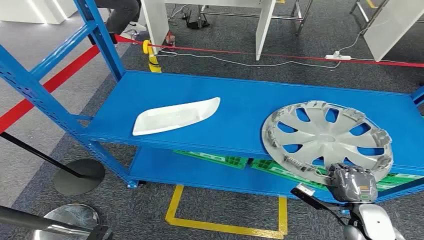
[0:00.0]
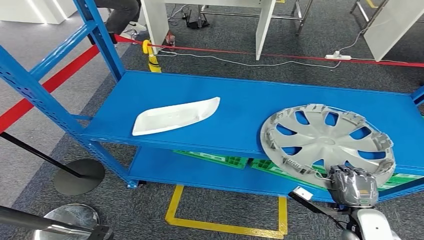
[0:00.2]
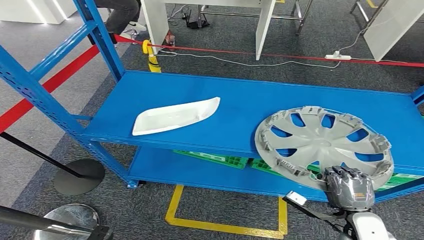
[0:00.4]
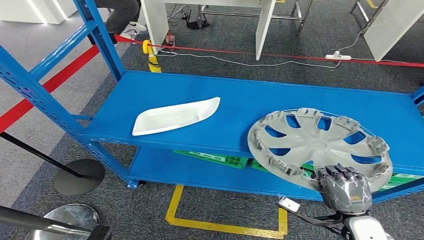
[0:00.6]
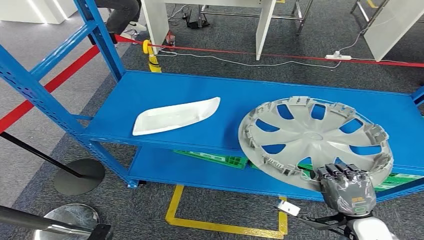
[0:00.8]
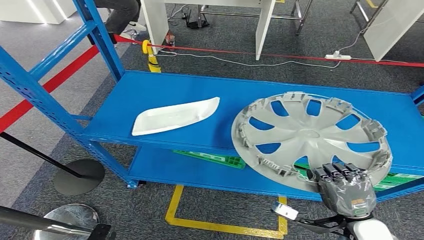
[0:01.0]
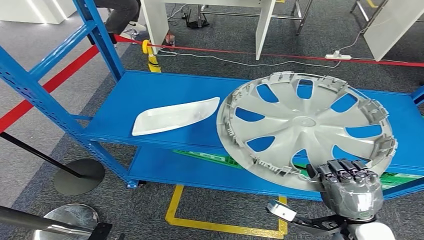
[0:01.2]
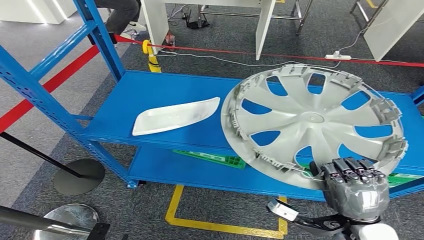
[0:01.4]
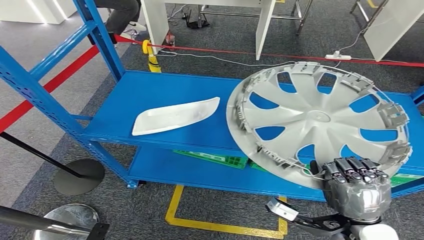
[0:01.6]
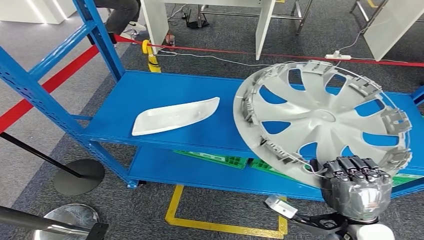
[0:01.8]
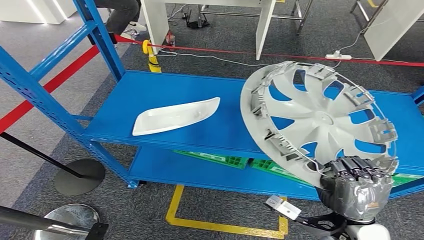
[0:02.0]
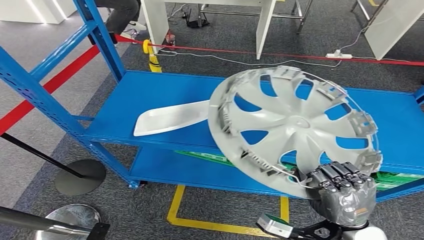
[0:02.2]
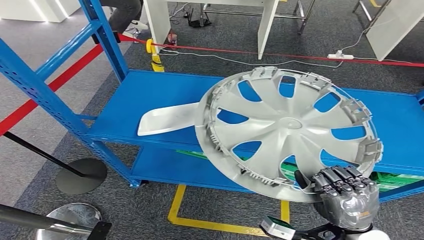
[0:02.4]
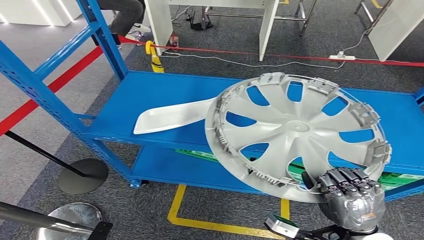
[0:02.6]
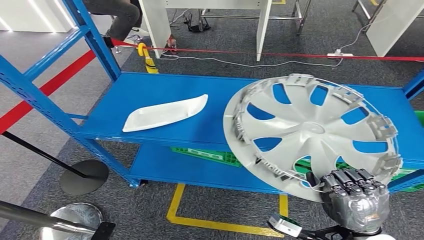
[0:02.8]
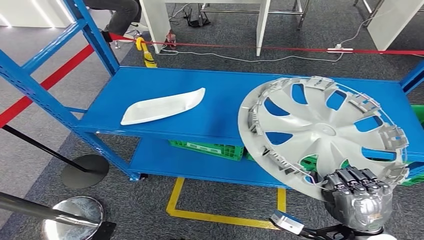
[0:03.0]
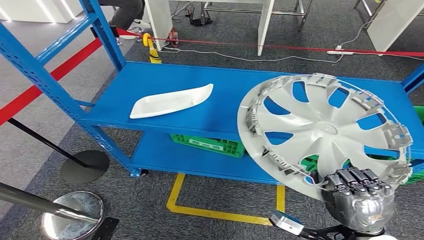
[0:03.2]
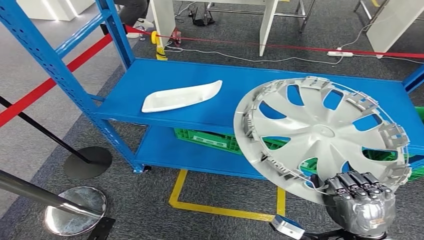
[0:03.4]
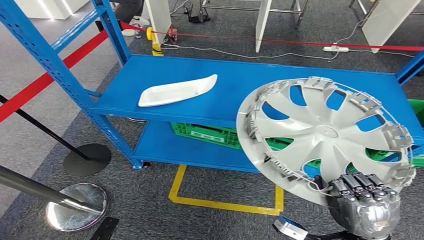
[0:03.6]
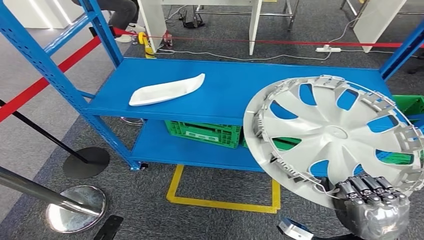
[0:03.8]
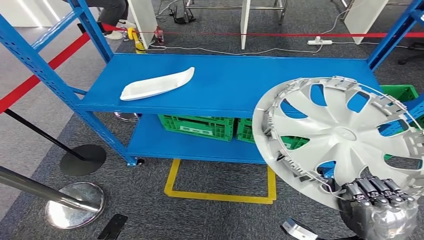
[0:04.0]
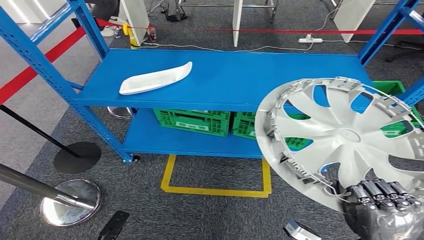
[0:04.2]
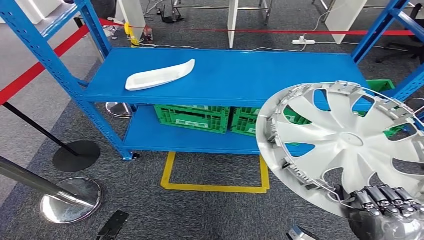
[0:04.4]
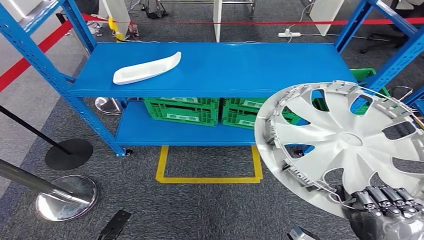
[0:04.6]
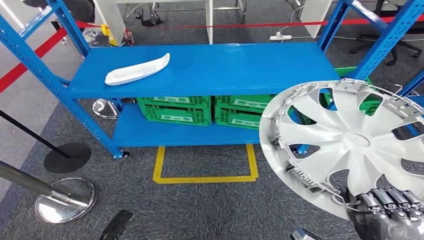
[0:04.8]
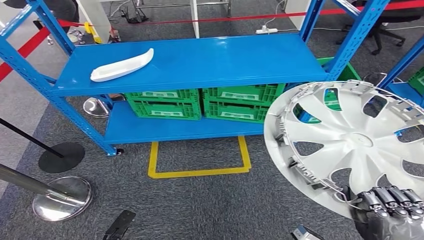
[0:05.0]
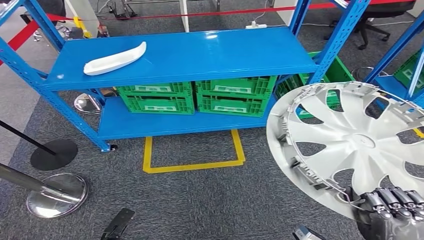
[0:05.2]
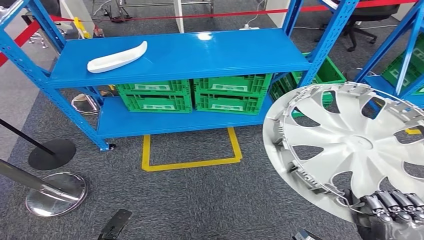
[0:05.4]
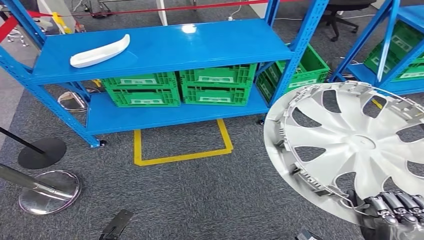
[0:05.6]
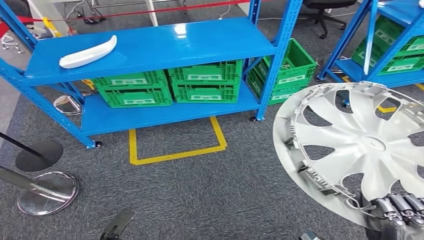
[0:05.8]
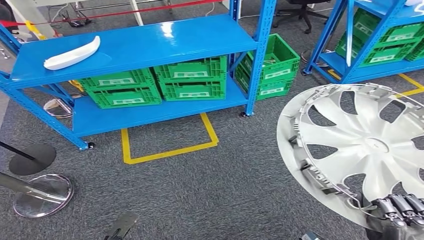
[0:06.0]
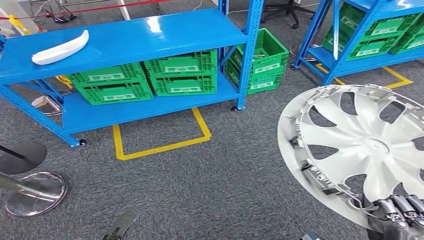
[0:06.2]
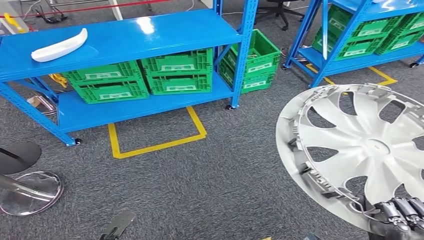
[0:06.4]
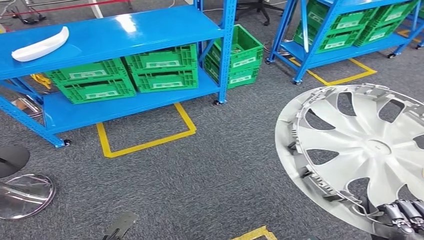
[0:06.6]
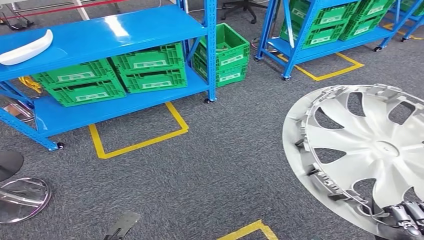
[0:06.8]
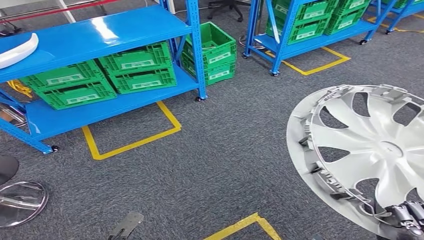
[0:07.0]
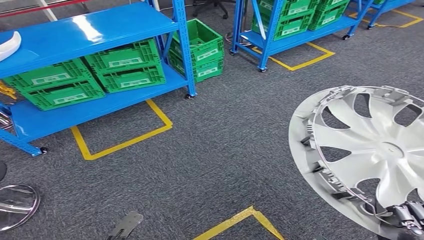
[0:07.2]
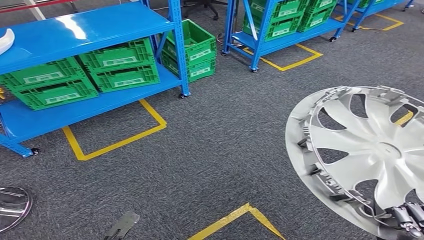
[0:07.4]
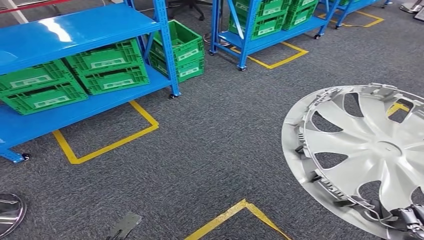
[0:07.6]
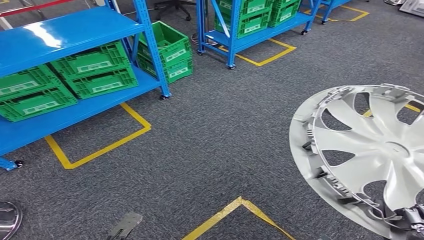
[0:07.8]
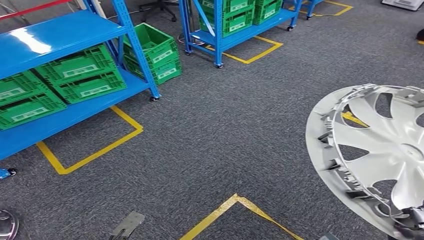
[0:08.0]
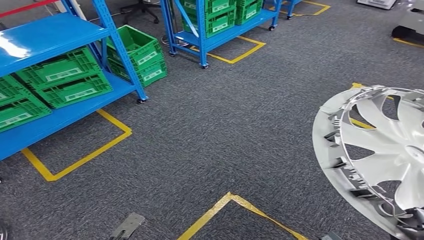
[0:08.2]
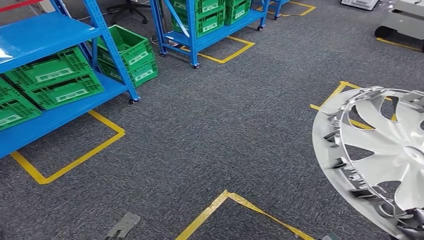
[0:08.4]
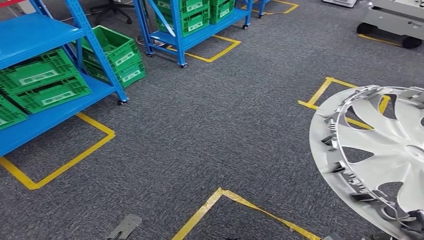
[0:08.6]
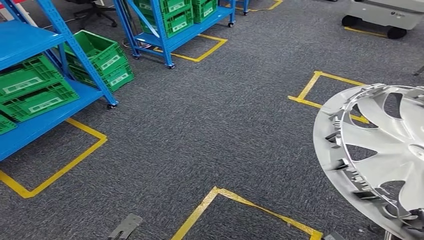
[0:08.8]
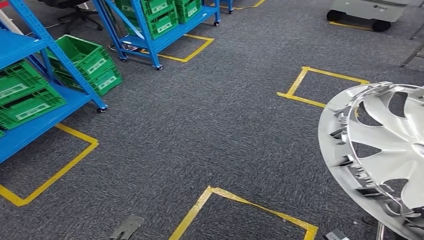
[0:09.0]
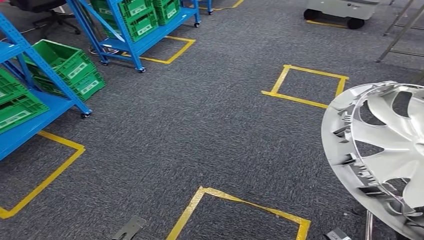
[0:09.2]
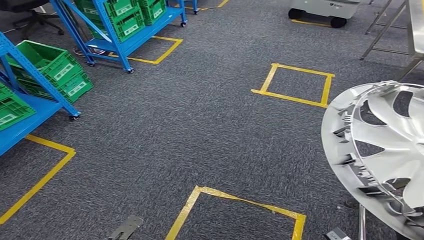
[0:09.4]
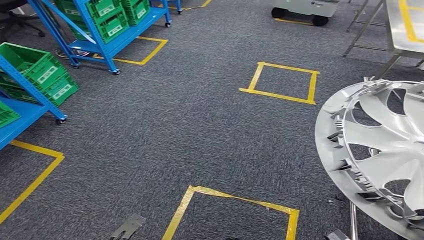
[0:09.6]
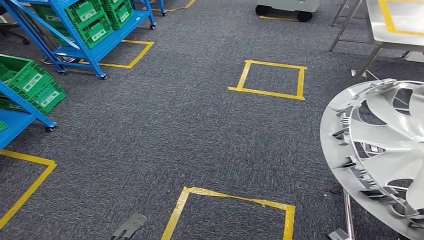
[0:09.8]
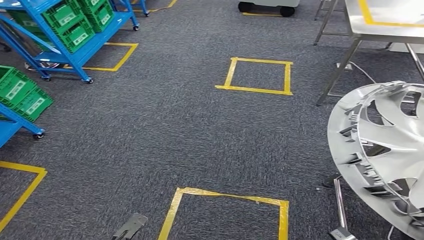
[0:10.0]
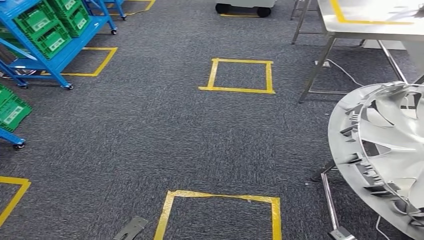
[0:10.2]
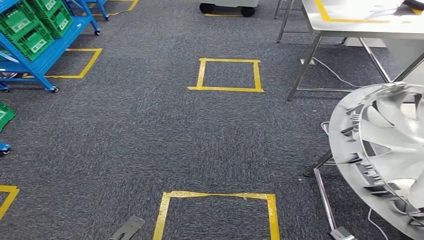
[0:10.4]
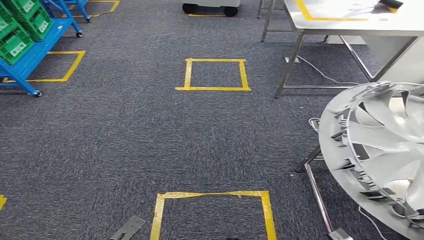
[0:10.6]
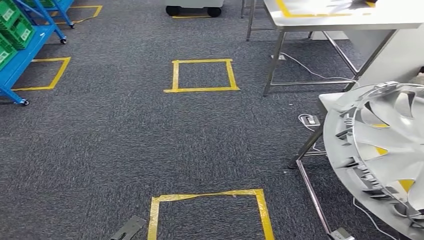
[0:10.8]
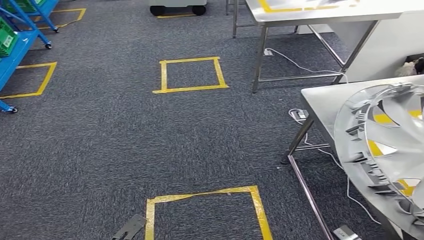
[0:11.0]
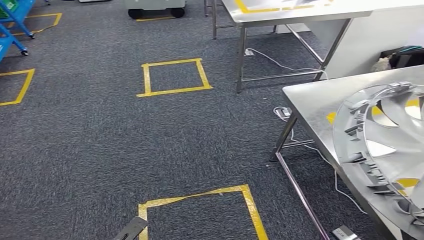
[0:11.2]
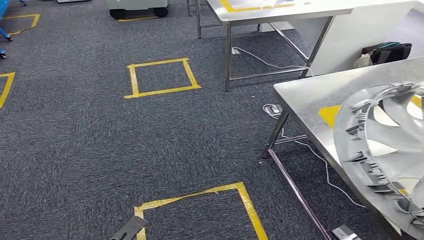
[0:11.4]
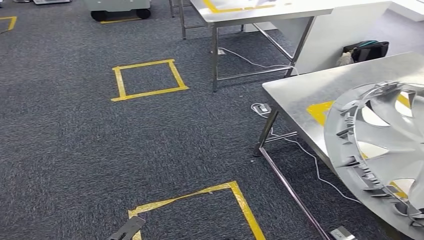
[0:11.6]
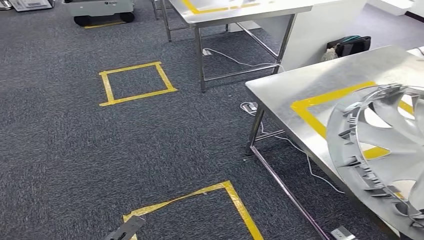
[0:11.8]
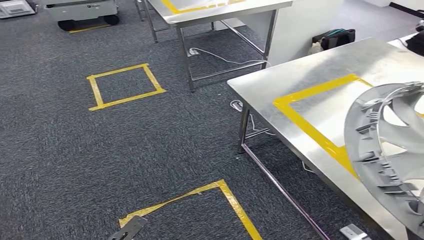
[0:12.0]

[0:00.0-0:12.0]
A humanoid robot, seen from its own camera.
Step, 0:00.0 to 0:03.2: Take small components from the rack.

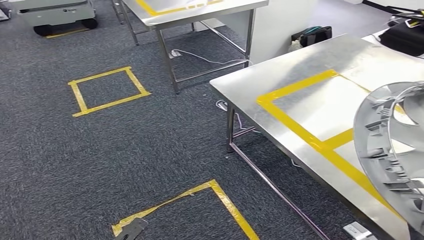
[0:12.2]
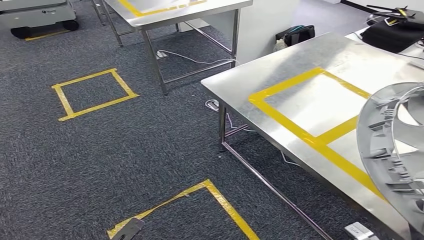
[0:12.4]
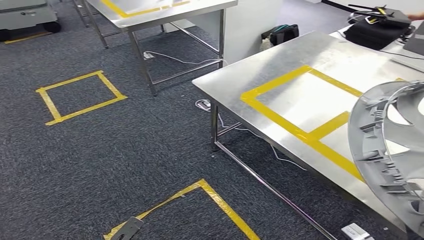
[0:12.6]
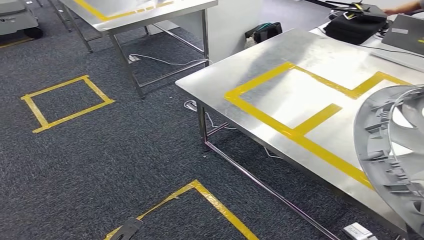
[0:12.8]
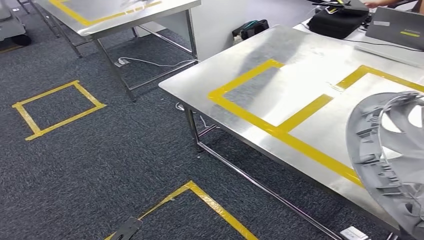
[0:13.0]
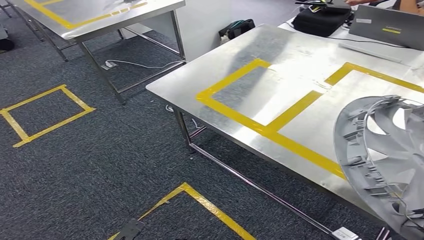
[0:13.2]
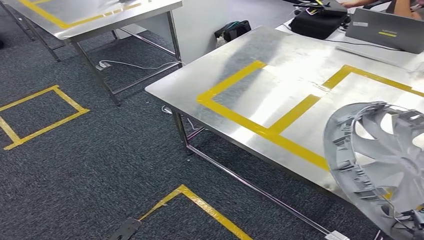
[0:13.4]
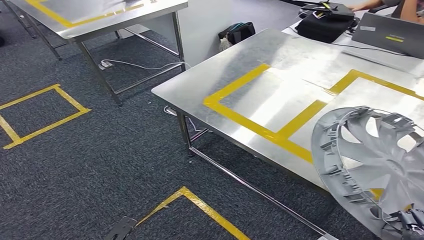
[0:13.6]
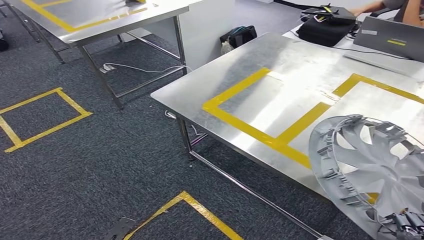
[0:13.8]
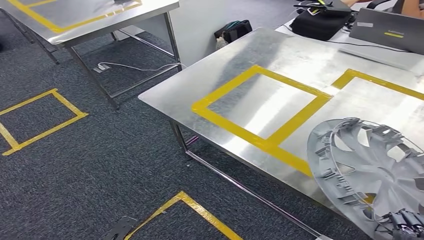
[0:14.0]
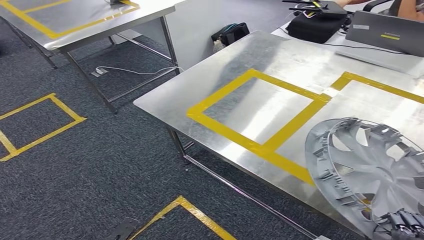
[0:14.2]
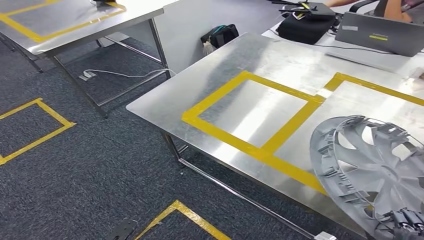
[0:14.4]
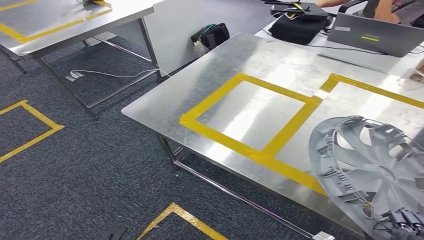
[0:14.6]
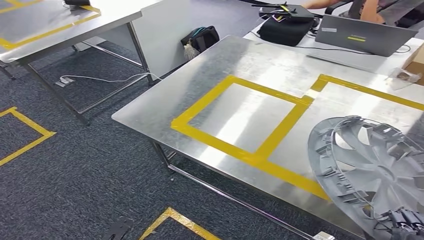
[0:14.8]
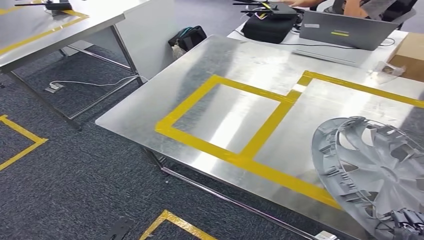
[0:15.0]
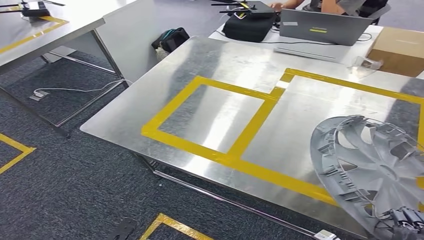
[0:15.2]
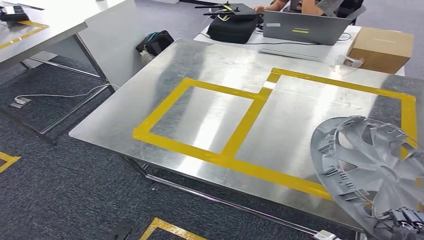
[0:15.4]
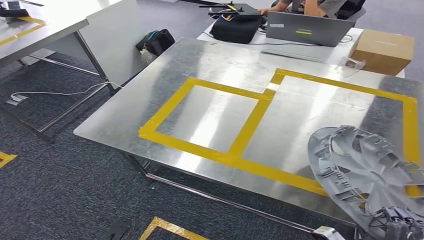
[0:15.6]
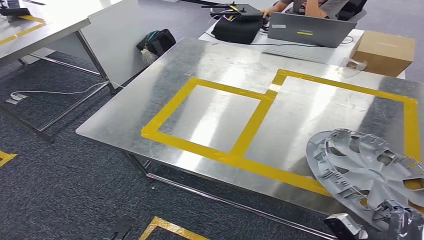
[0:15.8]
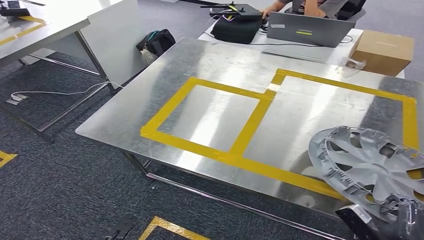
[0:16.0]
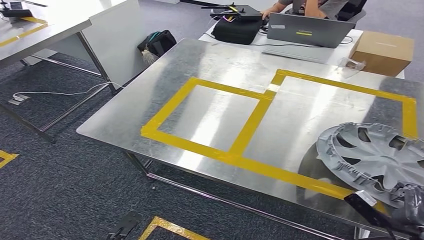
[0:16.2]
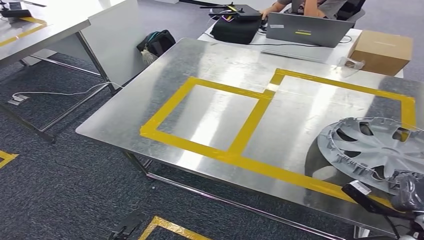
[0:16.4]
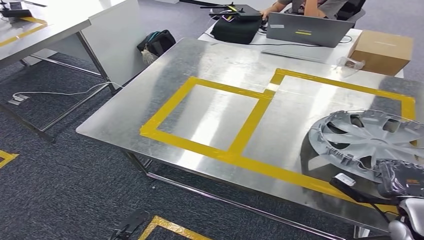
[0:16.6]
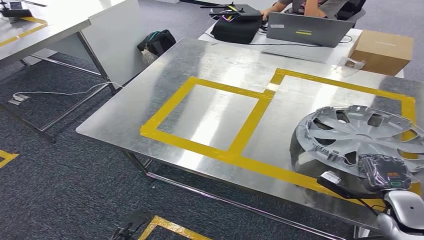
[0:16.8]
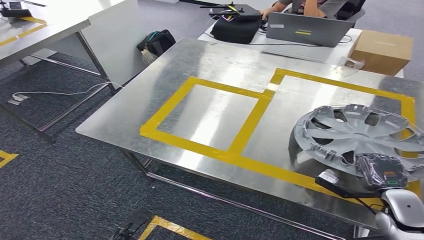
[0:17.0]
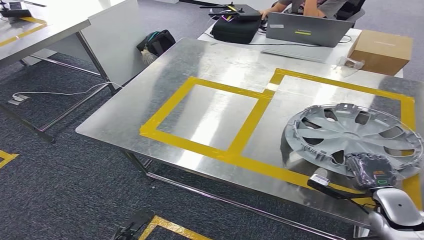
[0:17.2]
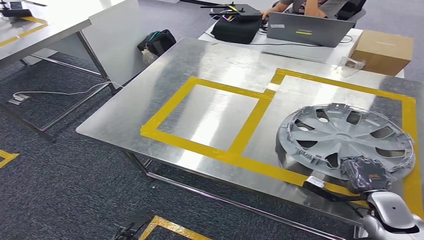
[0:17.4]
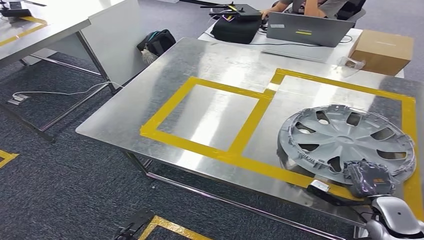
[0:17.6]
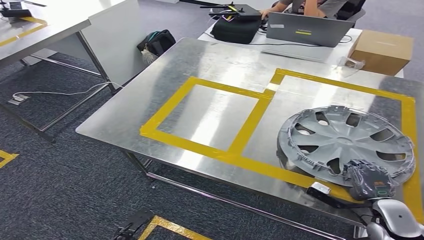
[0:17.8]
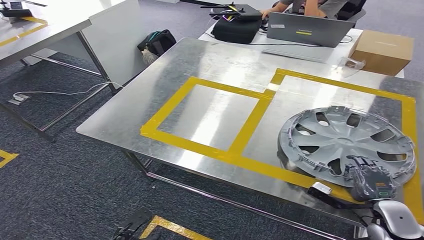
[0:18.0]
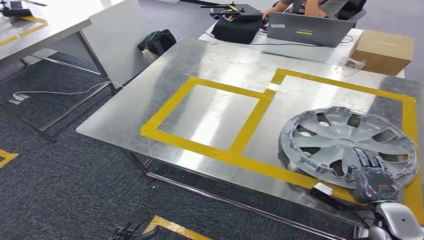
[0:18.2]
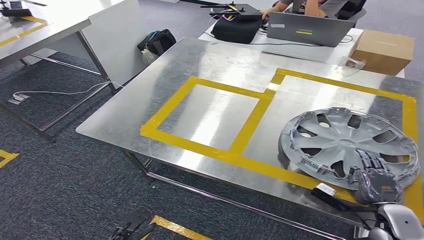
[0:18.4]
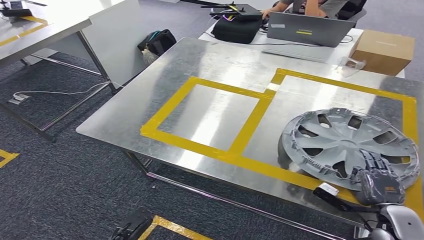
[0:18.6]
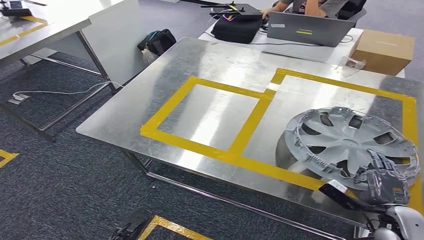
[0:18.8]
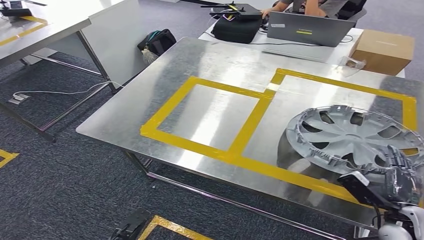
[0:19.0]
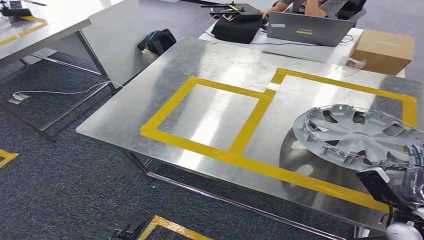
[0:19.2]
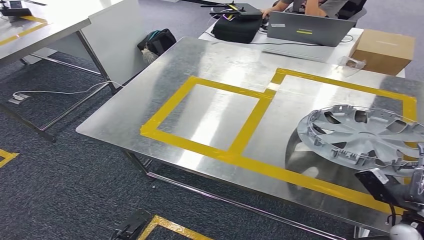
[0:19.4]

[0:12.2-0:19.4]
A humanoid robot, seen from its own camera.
0:16.6 to 0:18.0: The right hand ends up roughly 5 cm from where it was.
0:18.0 to 0:19.4: The right hand changes place by some 5 cm.
